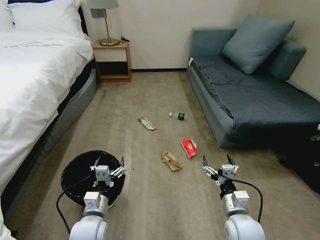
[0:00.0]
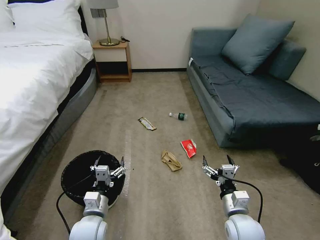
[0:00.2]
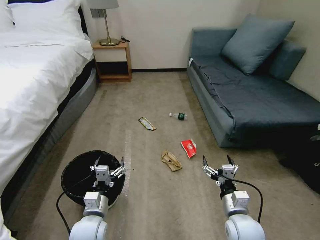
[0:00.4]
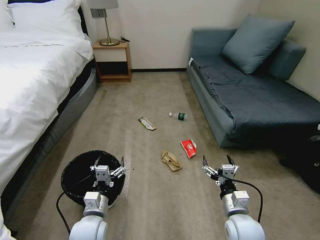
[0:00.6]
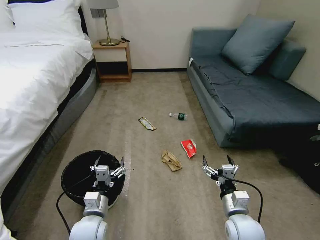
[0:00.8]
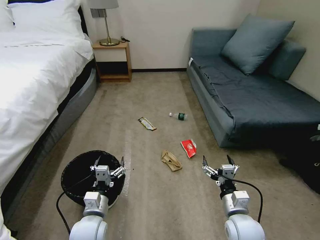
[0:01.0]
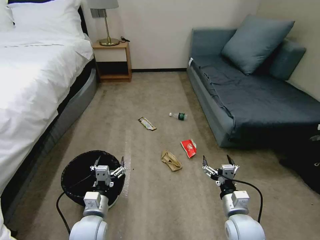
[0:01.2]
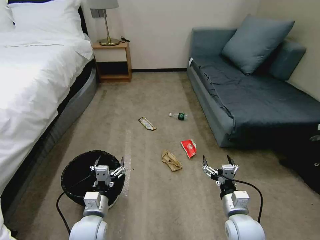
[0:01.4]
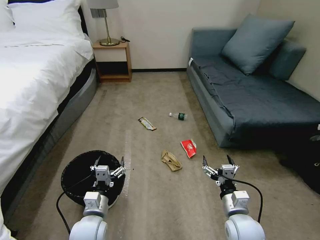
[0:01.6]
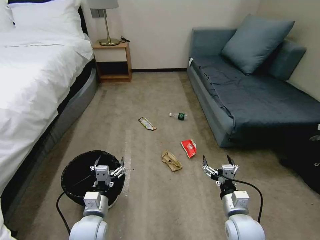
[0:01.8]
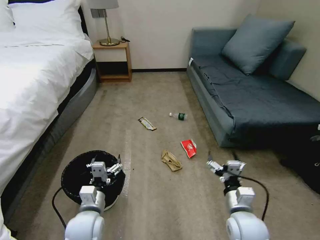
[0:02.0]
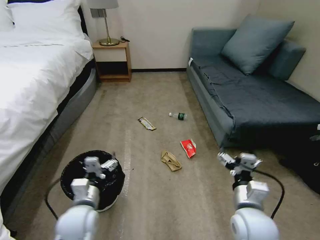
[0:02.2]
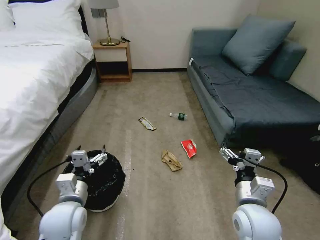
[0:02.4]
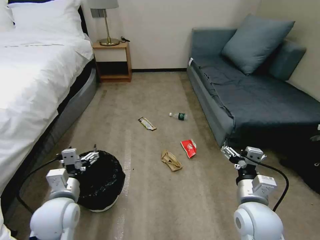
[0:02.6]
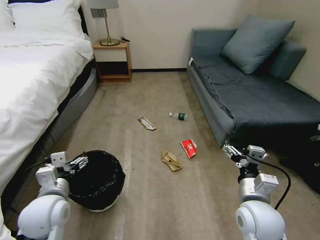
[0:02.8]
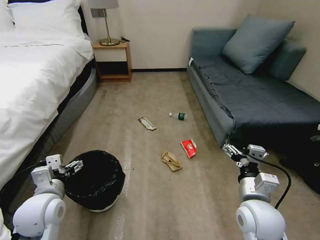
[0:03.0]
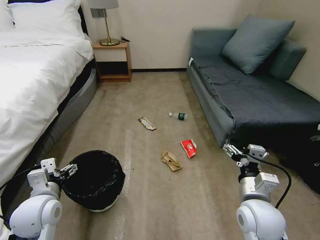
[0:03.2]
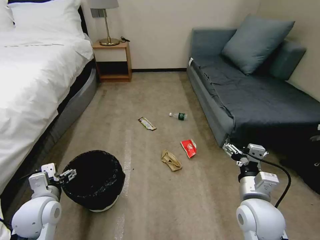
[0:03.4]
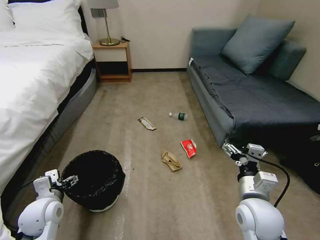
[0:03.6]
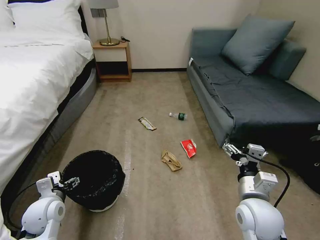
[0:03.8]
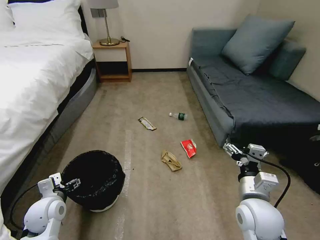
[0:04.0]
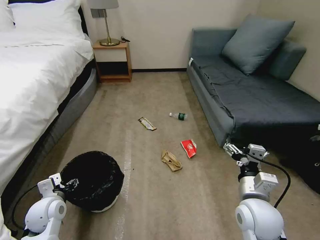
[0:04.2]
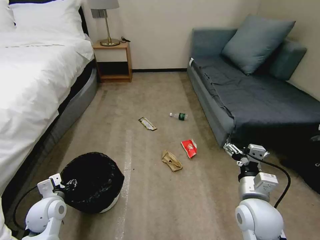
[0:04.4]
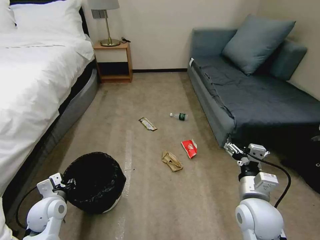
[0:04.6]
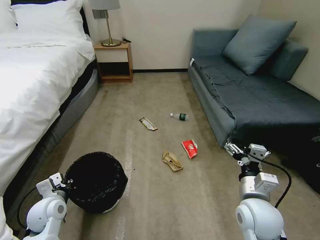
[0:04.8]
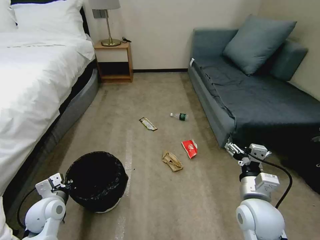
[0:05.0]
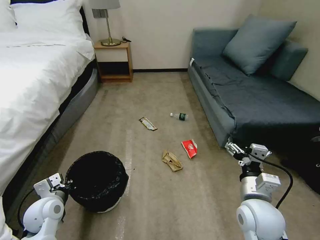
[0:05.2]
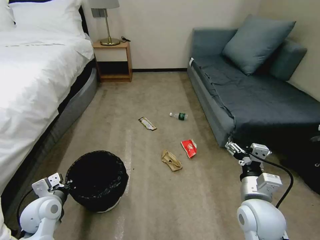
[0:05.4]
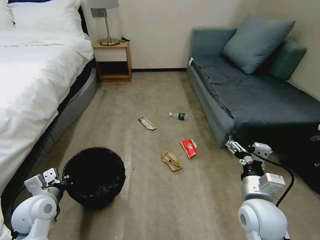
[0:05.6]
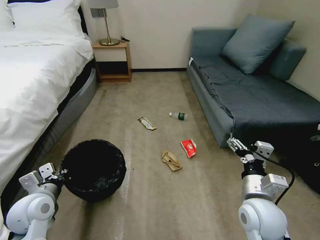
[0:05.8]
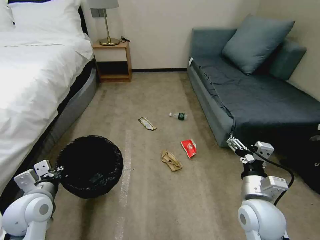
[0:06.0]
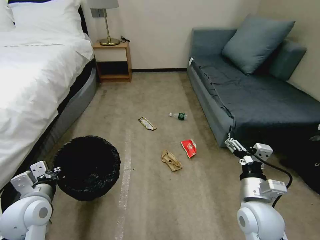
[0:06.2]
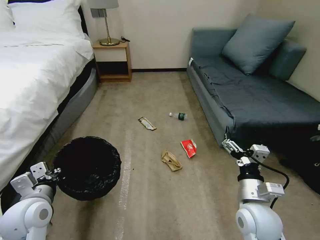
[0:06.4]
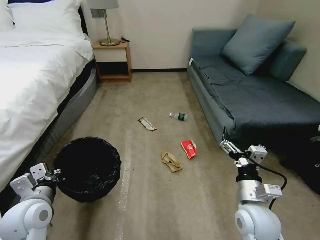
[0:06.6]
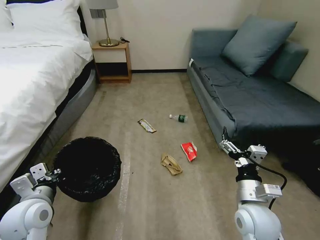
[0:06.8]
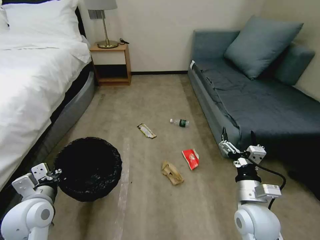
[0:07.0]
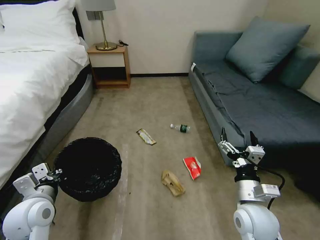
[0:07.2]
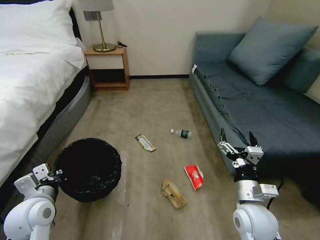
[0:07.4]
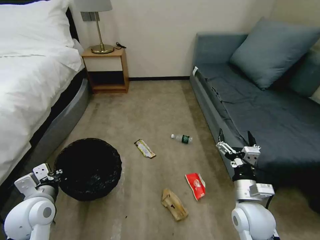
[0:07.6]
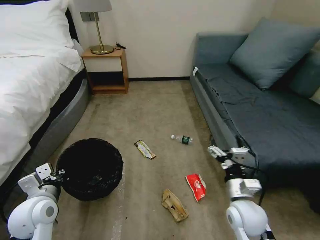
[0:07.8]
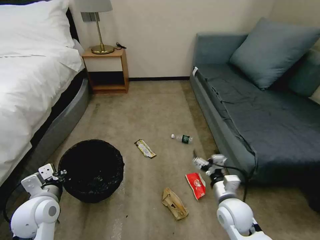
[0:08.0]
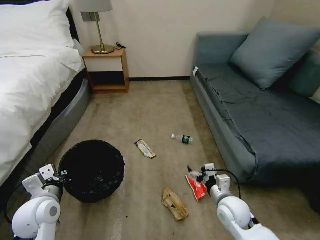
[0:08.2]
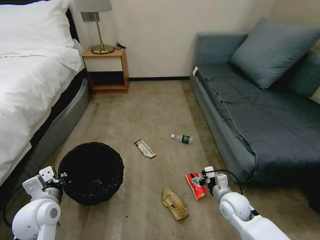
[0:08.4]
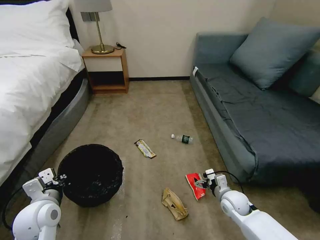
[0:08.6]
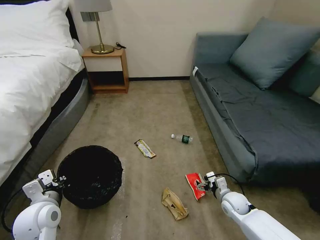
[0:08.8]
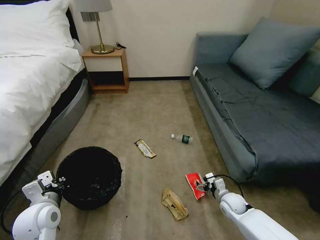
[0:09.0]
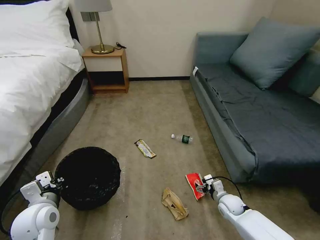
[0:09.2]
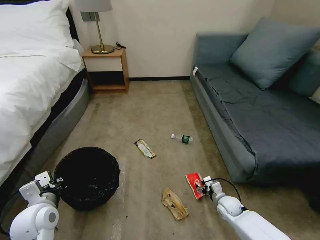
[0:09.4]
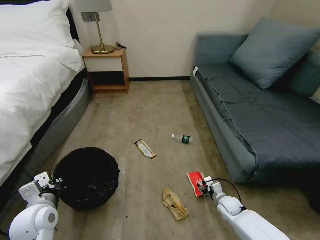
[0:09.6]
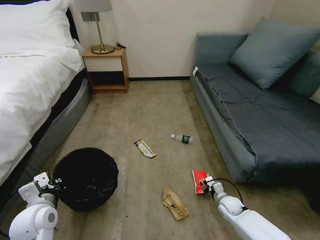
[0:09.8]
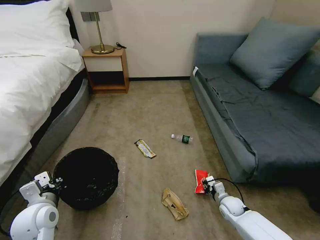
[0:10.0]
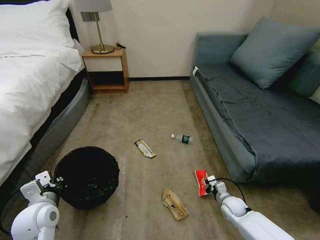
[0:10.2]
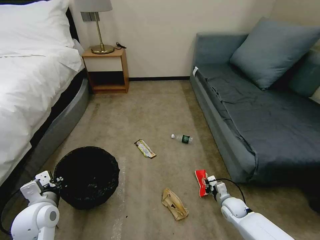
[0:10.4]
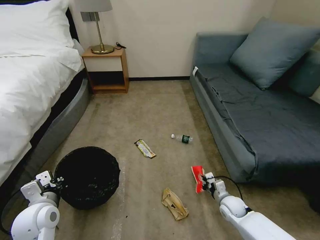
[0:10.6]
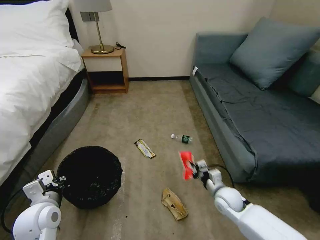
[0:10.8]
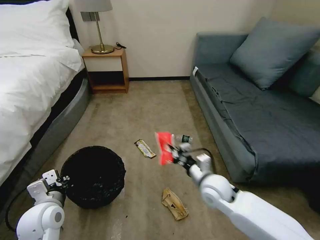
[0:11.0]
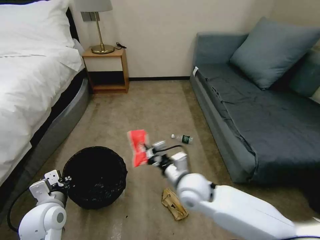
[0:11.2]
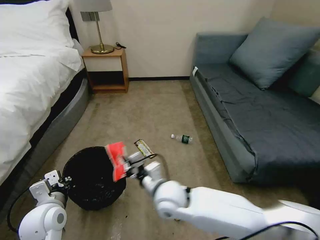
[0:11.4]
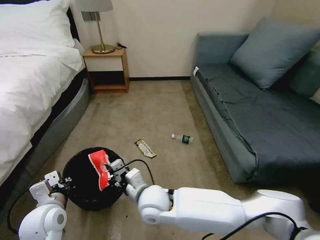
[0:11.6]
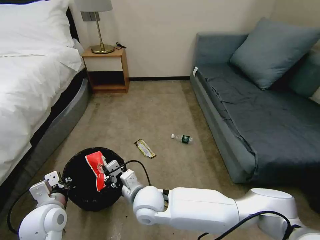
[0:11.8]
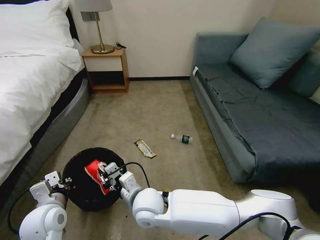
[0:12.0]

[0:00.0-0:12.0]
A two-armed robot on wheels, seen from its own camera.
Task of the whole recording: Pick up the trash bin, then pick up the garbage on the floor and place it into the trash bin.
0:01.6 to 0:03.0: The right gripper goes approximately 10 cm upward, while the left gripper is displaced upward and to the left by approximately 15 cm.
0:03.0 to 0:04.4: The left gripper is displaced downward and to the left by roughly 10 cm, and closes up.
0:04.4 to 0:06.0: The left gripper is displaced upward by about 10 cm, and closes up.
0:07.6 to 0:09.0: The right gripper is displaced downward and forward by approximately 20 cm.
0:09.0 to 0:10.4: The right gripper closes its fingers.
0:10.4 to 0:12.0: The right gripper heads to the left and upward, covering roughly 40 cm.

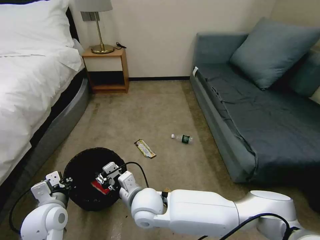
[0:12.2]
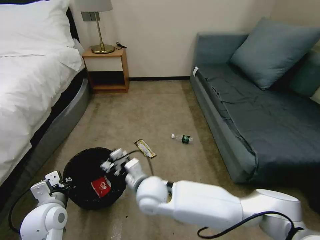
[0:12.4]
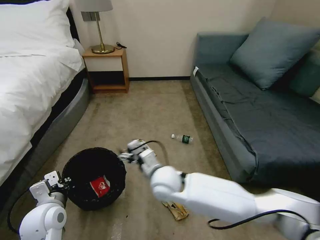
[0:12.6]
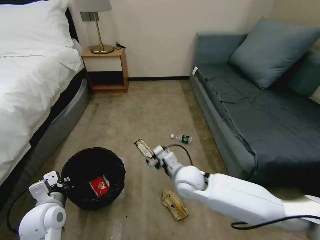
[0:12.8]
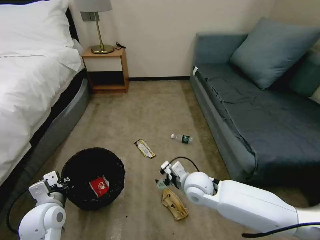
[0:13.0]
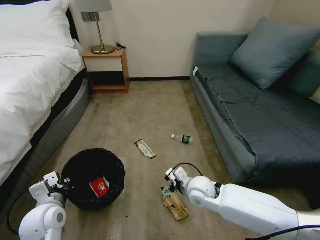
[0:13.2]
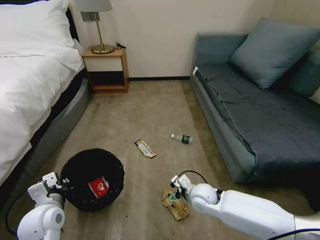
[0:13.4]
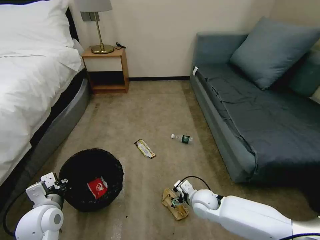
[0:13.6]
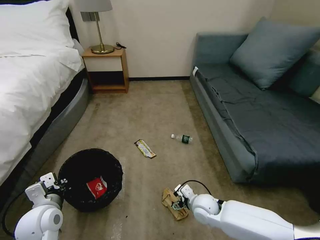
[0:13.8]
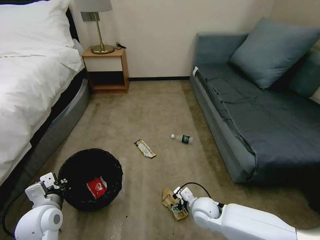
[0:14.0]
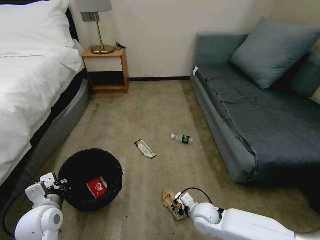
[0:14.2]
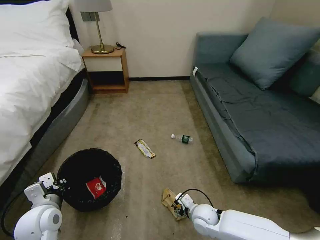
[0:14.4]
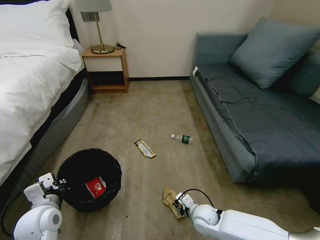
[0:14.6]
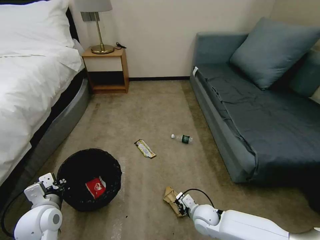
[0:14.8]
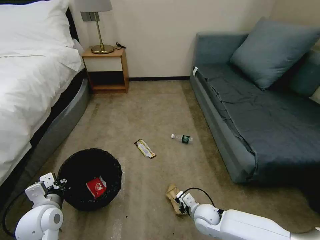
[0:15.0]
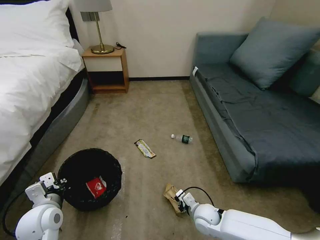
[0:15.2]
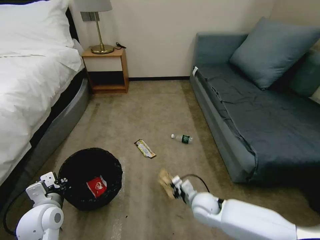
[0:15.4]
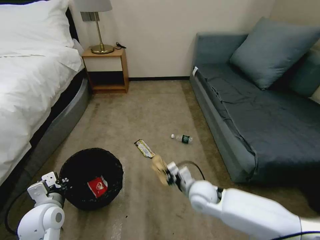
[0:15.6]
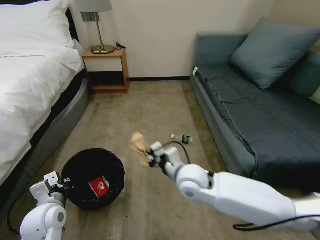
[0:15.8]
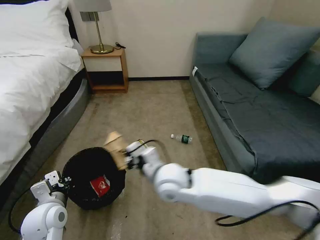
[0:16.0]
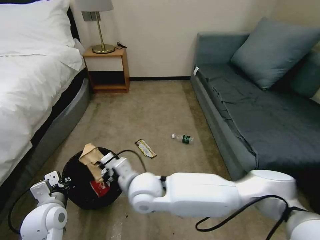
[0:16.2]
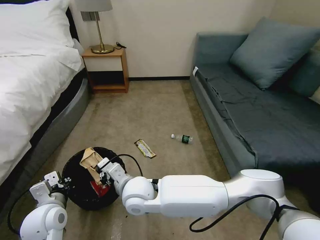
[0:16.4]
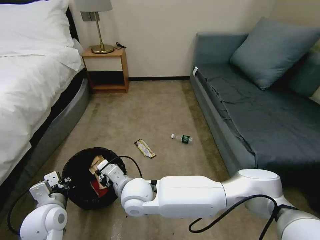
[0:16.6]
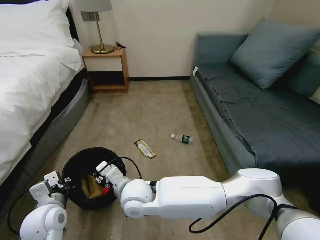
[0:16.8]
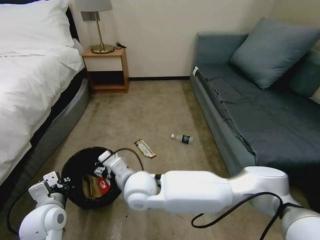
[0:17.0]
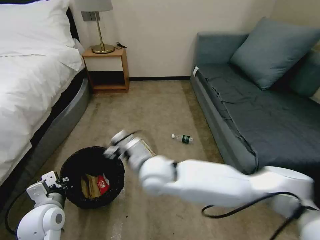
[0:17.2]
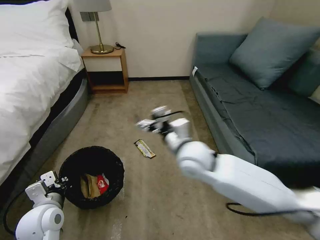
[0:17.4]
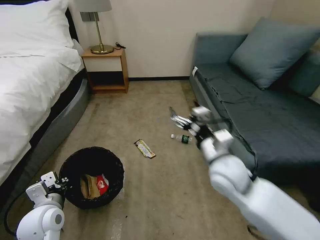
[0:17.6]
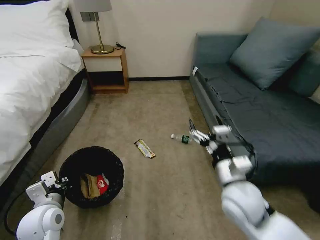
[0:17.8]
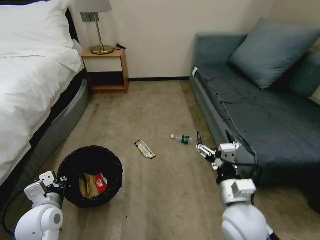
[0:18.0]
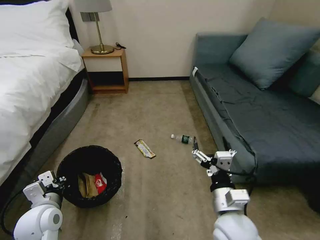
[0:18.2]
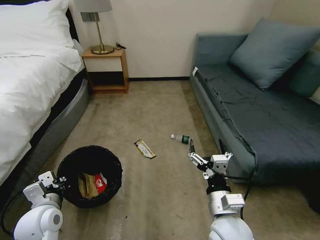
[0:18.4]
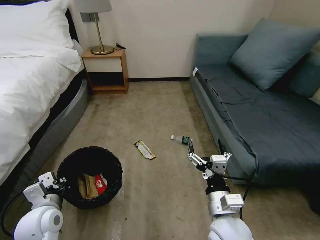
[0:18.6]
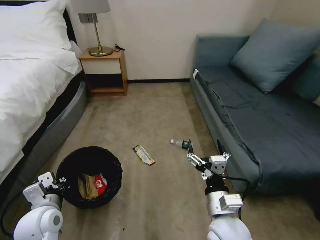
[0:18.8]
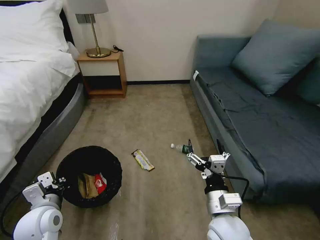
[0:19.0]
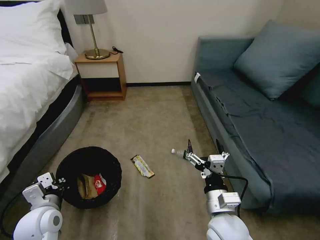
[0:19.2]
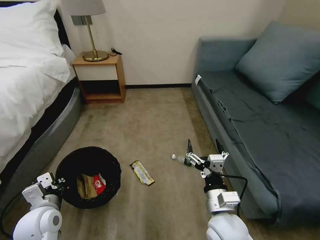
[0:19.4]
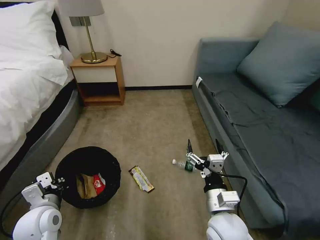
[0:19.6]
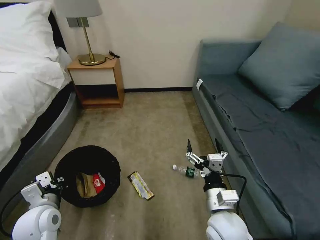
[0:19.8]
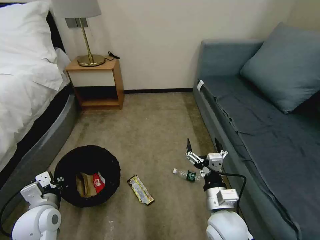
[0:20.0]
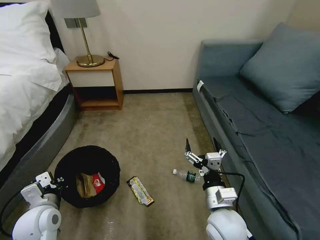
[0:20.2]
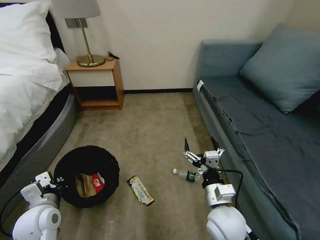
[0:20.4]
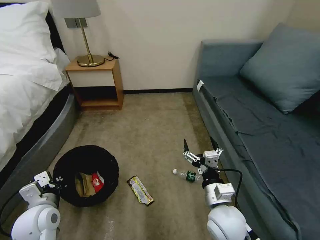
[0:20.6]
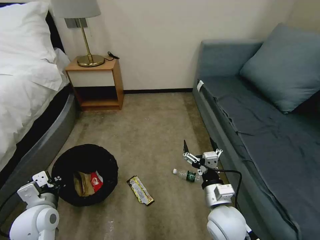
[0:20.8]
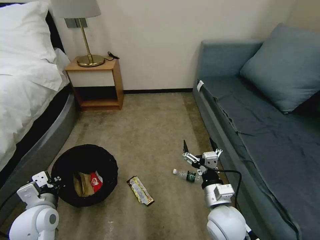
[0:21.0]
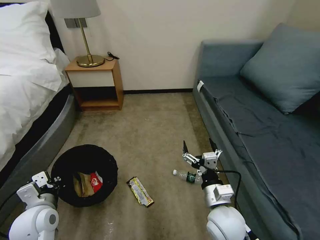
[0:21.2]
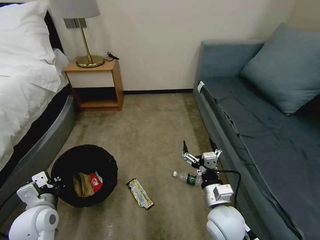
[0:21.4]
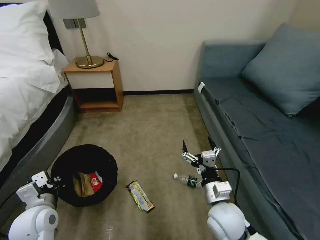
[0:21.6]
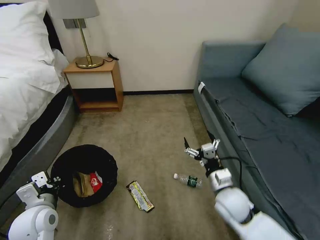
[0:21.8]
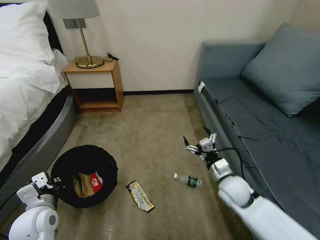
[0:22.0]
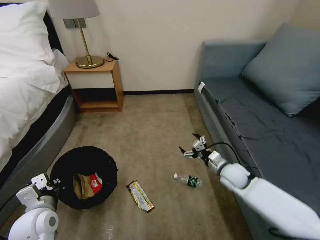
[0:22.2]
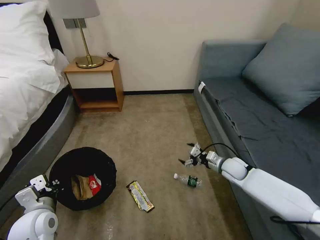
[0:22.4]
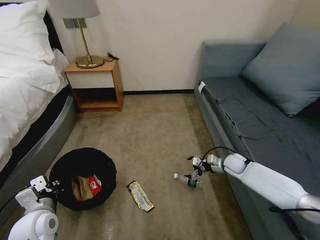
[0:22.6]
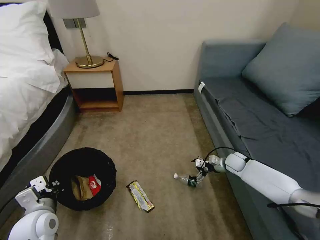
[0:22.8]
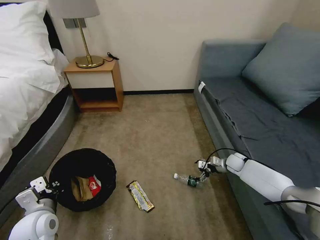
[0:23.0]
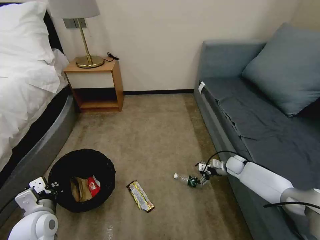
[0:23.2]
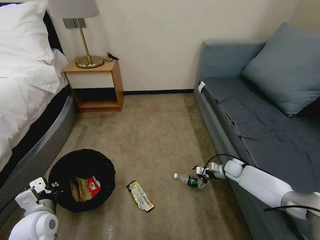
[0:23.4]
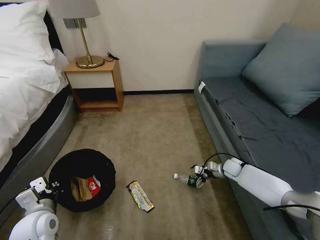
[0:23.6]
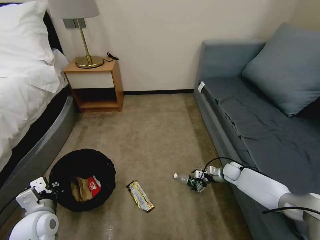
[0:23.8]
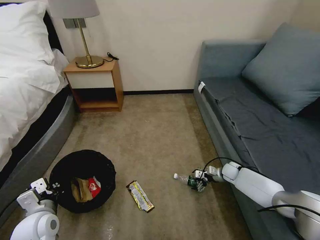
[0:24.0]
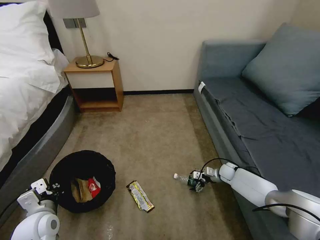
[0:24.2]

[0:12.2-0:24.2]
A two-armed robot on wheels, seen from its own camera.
Task of the whole recording: Pick up the trash bin, then pick up the garbage on the floor and place it into the trash bin.
0:12.2 to 0:13.8: The right gripper travels to the right and downward by roughly 25 cm, and opens.
0:13.8 to 0:15.2: The right gripper closes up.
0:15.2 to 0:16.6: The right gripper is displaced to the left and upward by about 30 cm.
0:16.6 to 0:18.2: The right gripper is displaced to the right by about 25 cm, and opens.
0:19.8 to 0:21.2: The grippers move only a little.
0:21.2 to 0:22.6: The right gripper is displaced forward and to the right by some 30 cm.
0:22.6 to 0:24.2: The right gripper heads downward, covering approximately 10 cm.
